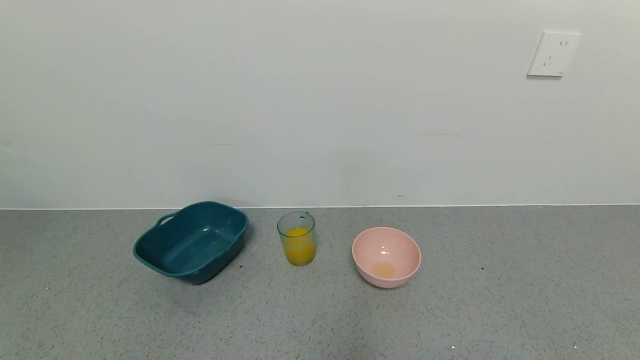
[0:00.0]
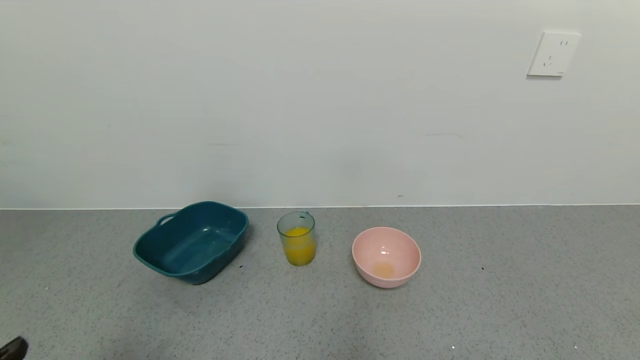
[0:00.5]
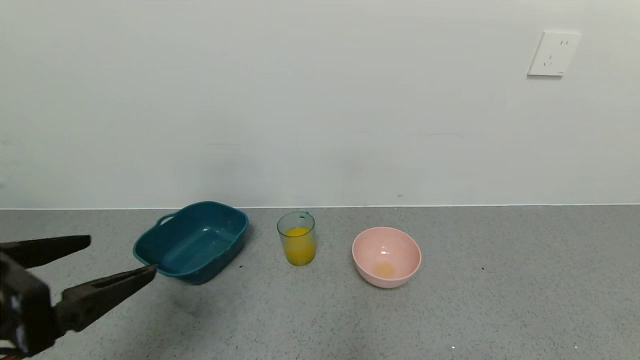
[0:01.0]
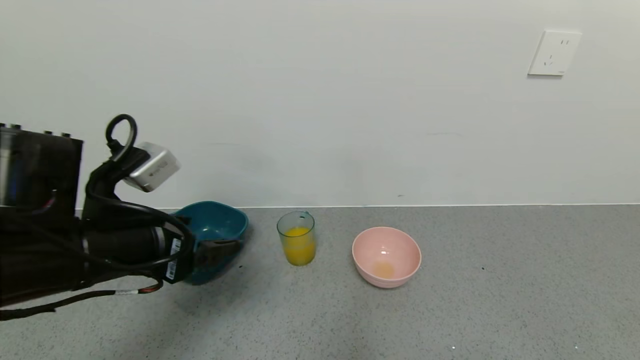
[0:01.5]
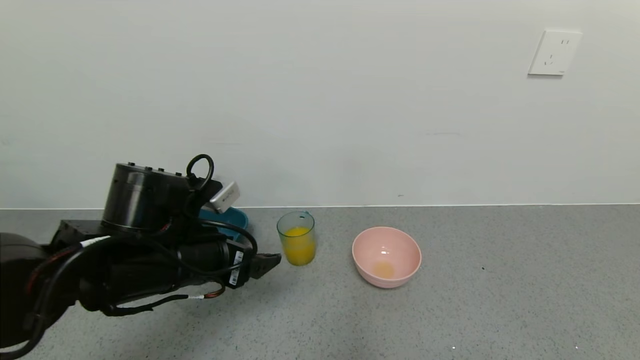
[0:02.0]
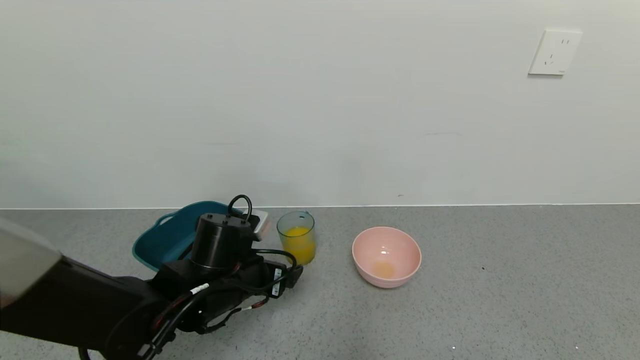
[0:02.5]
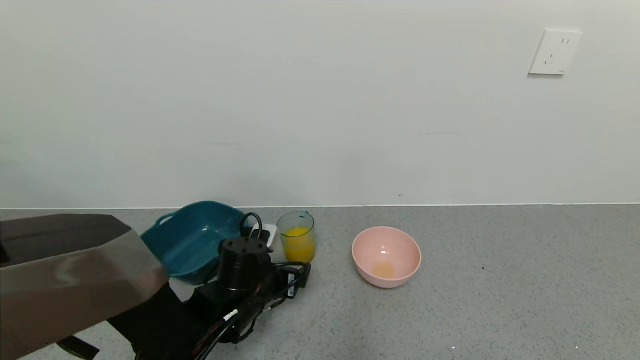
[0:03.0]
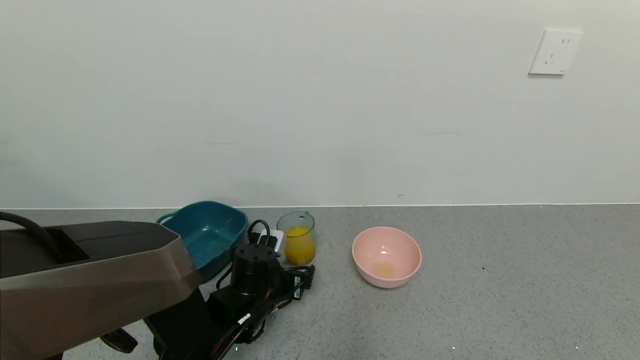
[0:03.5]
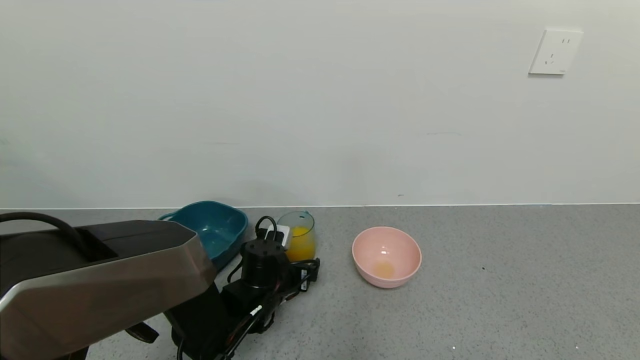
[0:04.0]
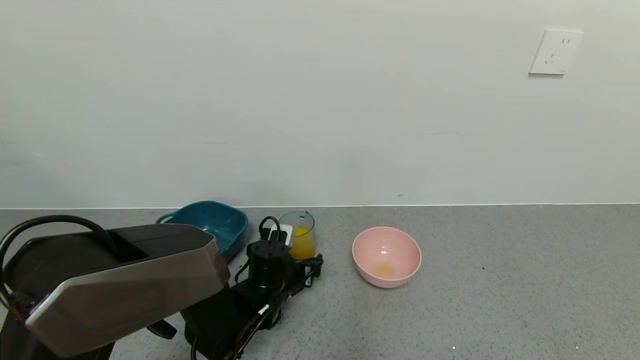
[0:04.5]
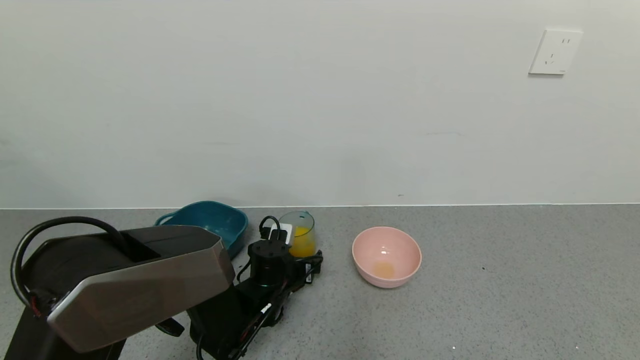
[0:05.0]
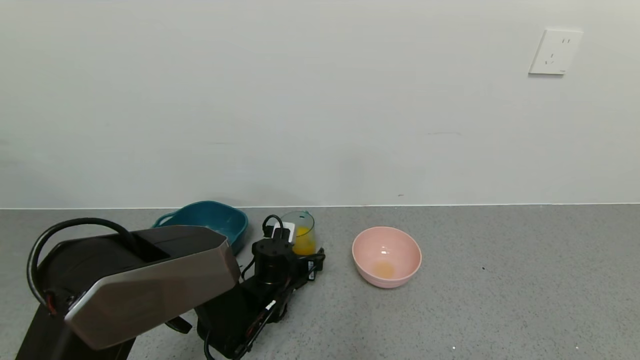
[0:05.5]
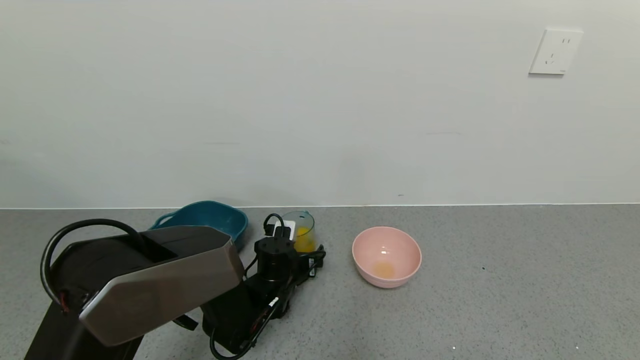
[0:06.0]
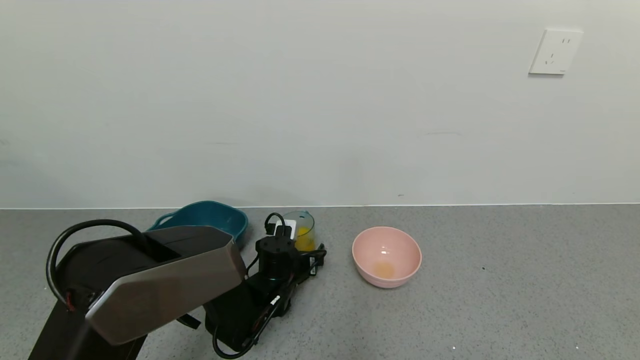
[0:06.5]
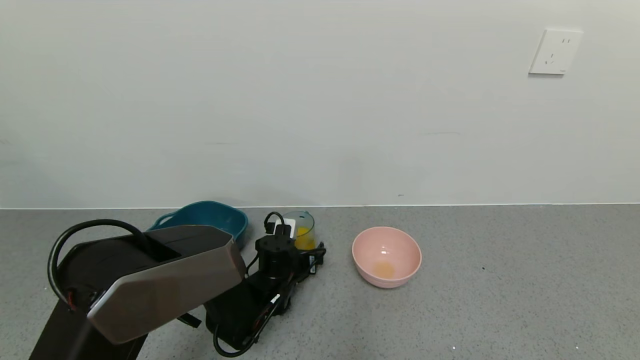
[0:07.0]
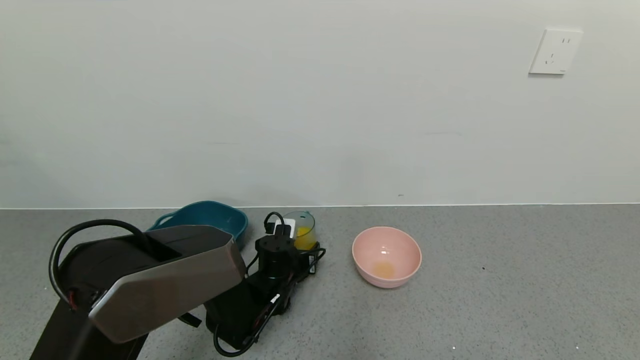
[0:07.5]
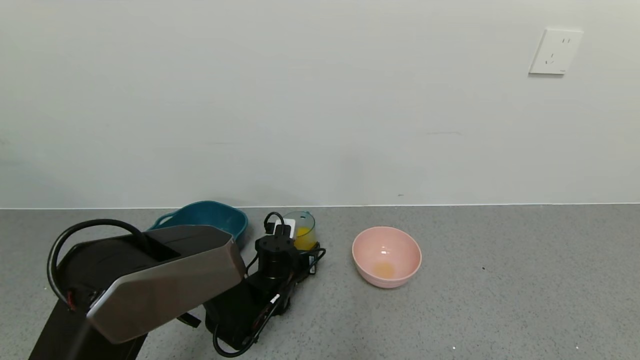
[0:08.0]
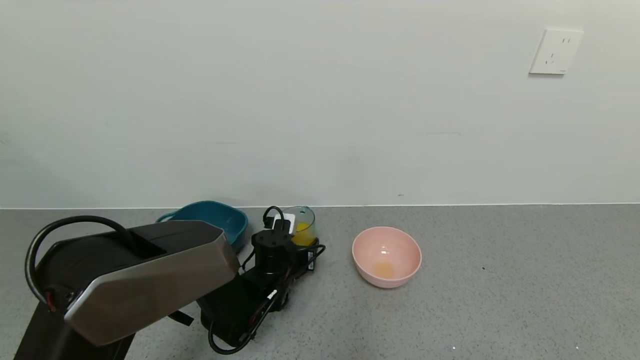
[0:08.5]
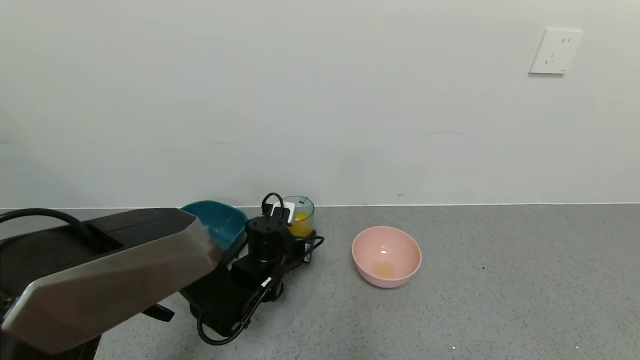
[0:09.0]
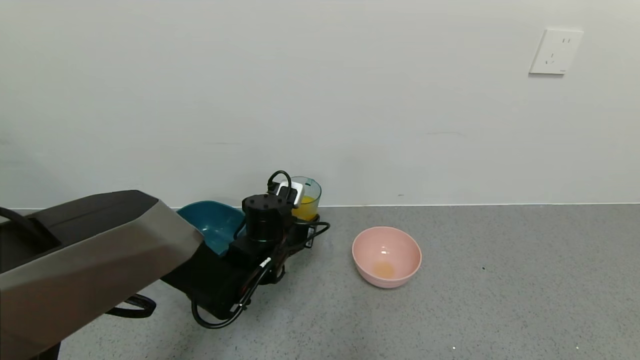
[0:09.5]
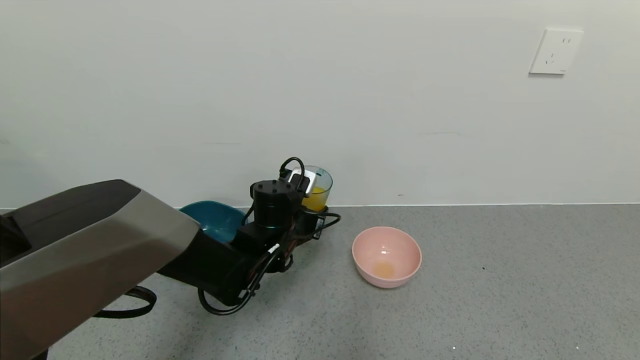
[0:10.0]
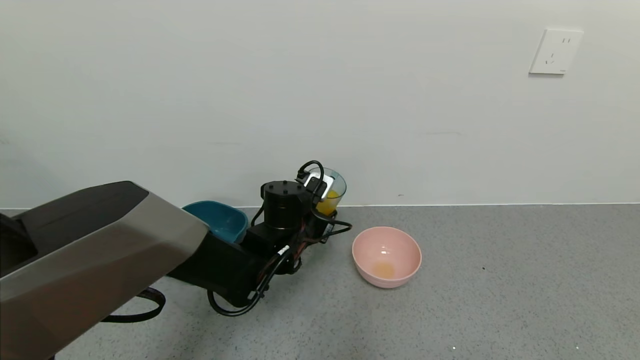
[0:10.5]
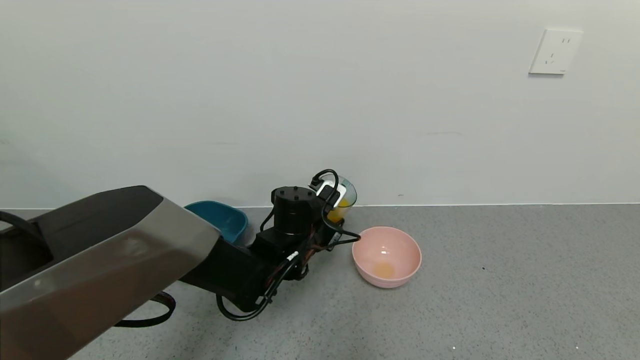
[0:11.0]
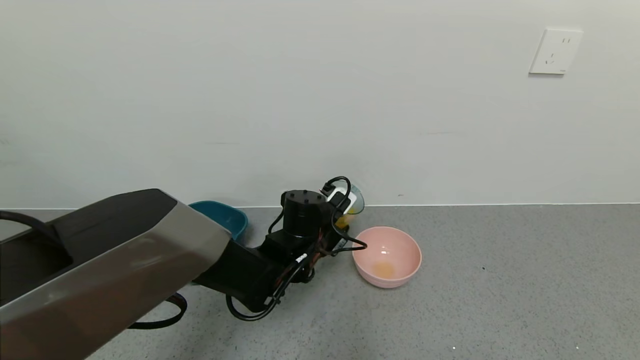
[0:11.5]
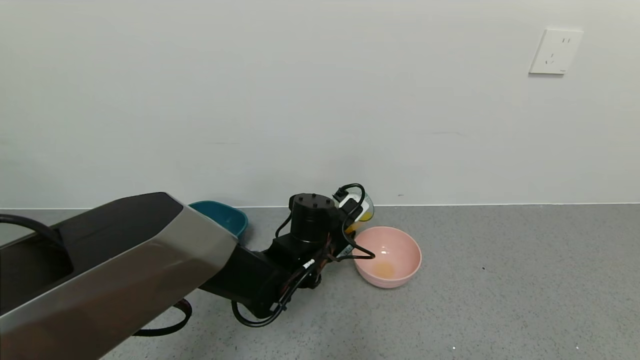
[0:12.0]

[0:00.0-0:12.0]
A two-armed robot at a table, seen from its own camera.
Task of the whole recording: use a gripper to pick up the cup and pour the liquid into a bowl or tray.
Step, 0:00.0 to 0:08.0: Grasp the glass of orange juice with the left gripper.
0:00.0 to 0:02.0: The left gripper travels forward by roughly 30 cm.
0:02.0 to 0:04.0: The left gripper travels downward, forward and to the right by about 20 cm.
0:04.0 to 0:06.0: The grippers move only a little.
0:06.0 to 0:08.0: The left gripper closes.
0:08.0 to 0:10.0: The left gripper travels upward by approximately 10 cm.
0:10.0 to 0:12.0: The left gripper shifts roughly 5 cm to the right.

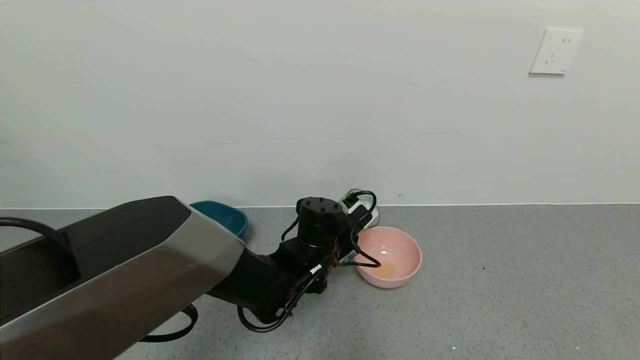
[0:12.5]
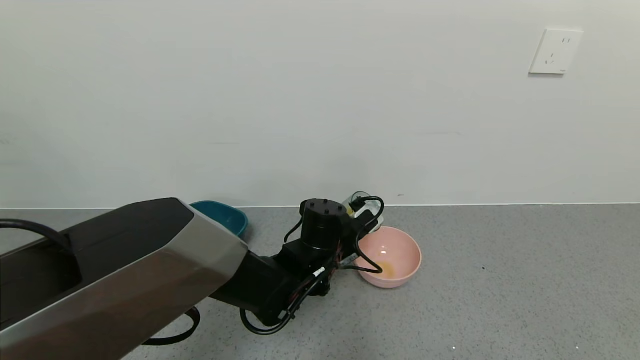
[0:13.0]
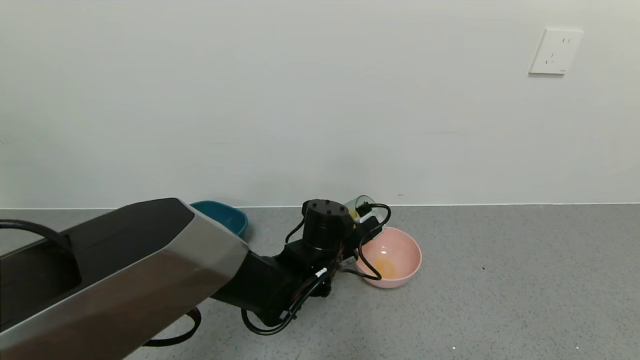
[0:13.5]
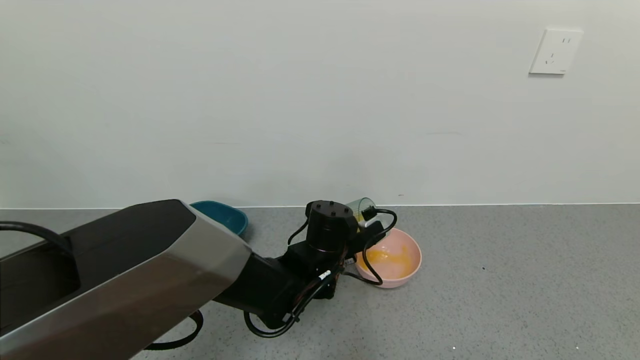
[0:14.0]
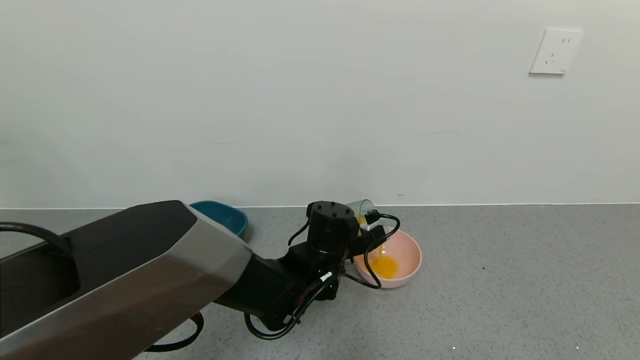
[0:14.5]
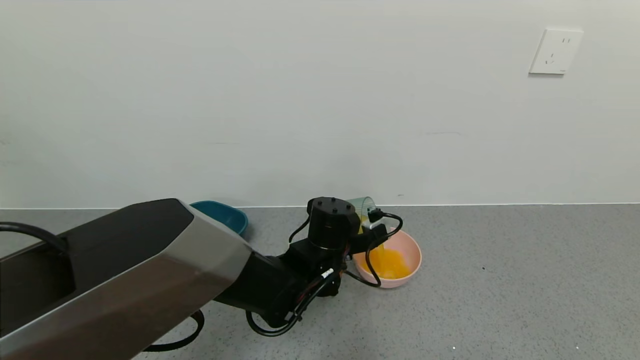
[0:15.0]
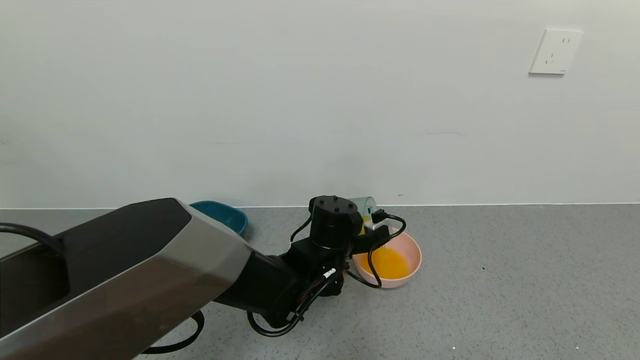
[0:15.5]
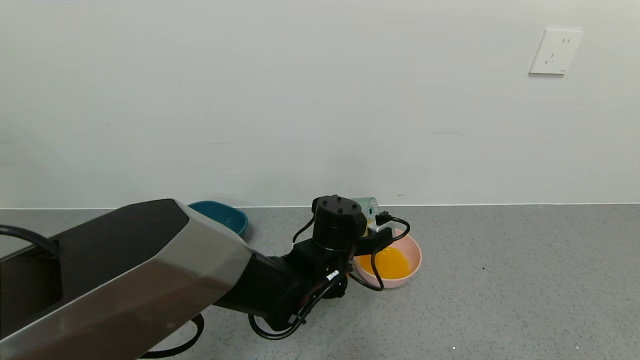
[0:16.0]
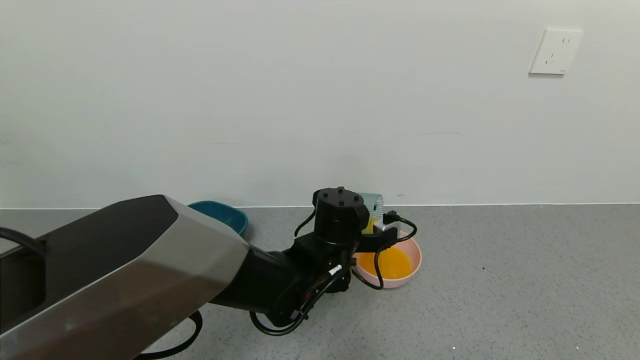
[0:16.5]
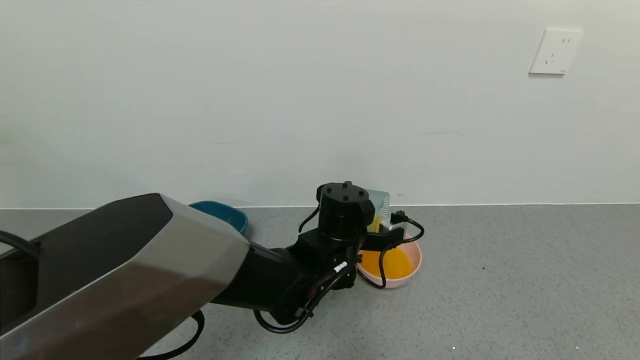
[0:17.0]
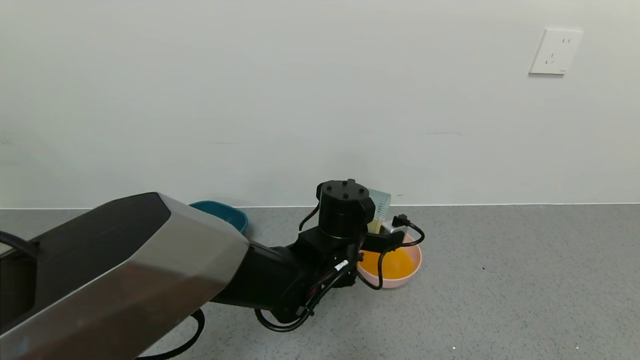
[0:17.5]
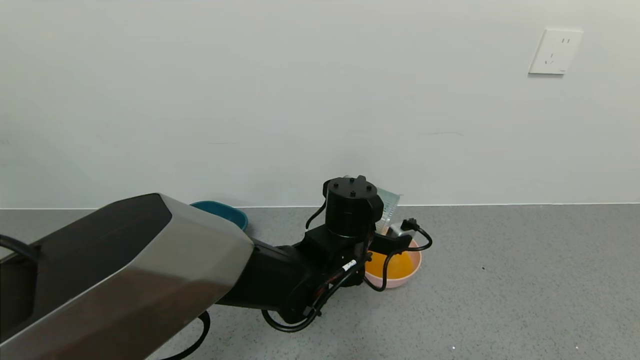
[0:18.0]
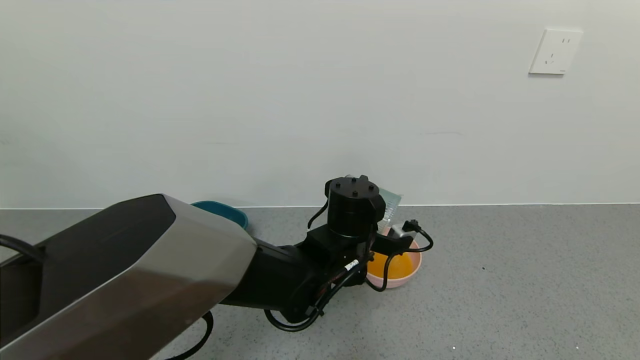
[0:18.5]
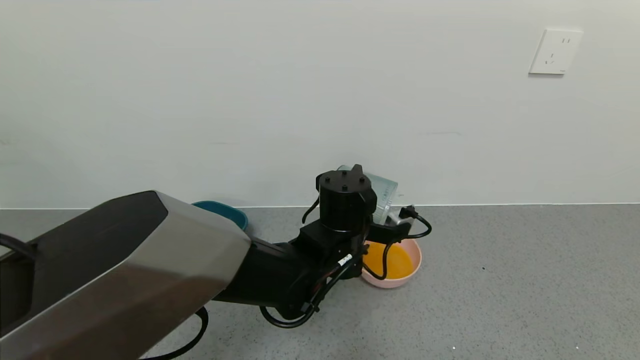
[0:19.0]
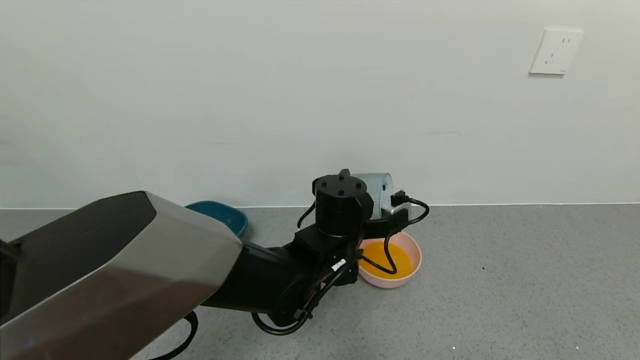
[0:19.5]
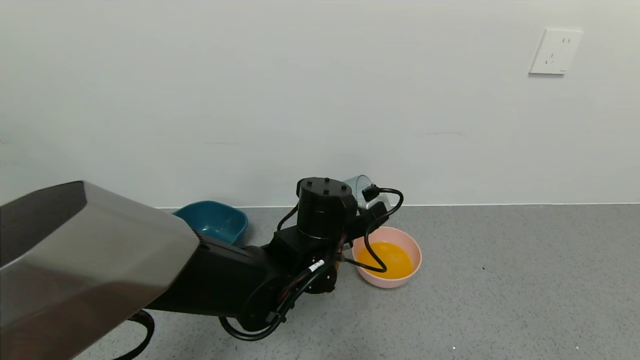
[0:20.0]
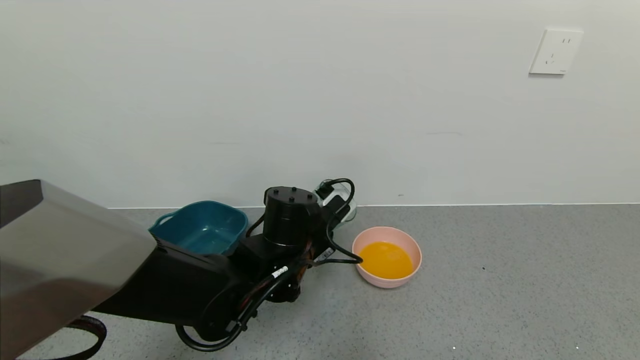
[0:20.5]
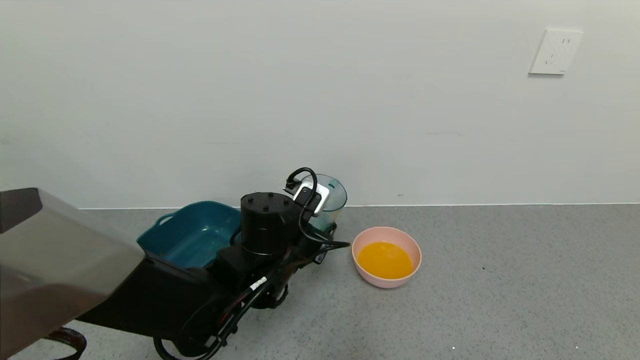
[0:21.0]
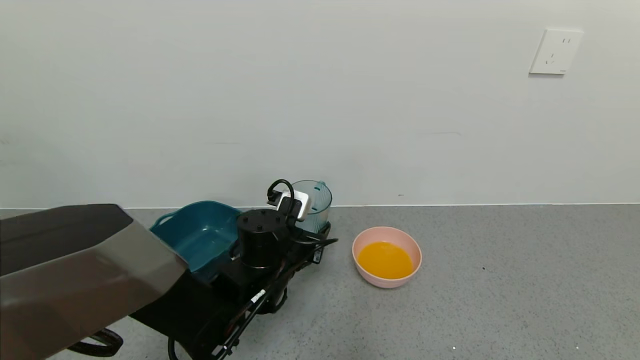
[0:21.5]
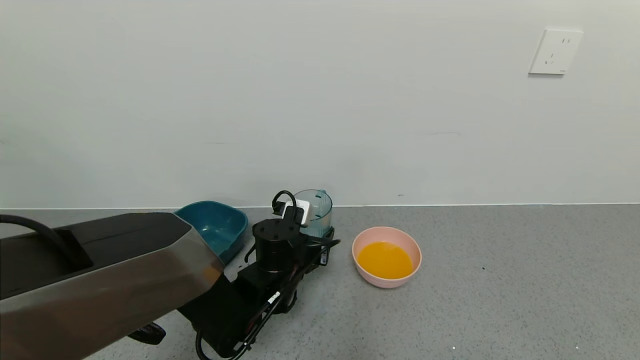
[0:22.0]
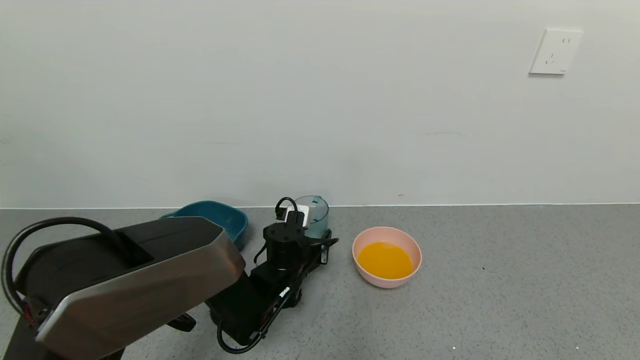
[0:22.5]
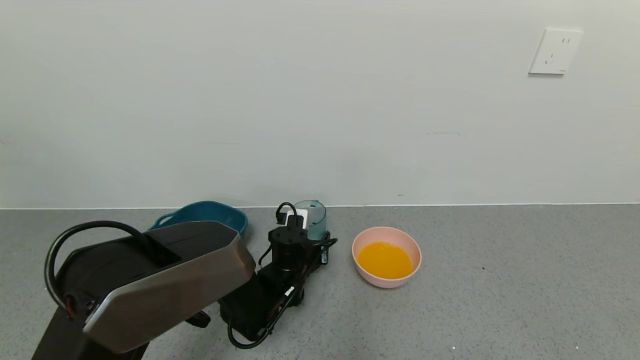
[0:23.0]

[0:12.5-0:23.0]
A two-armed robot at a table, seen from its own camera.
Task of the whole recording: use a gripper to pick up the cup and pour the liquid into a bowl or tray.
Step, 0:12.5 to 0:18.0: Pour the orange juice into the pink bowl with the left gripper.
0:14.5 to 0:16.5: The grippers stay close to where they were, moving slightly.
0:16.5 to 0:19.0: The grippers move only a little.
0:19.0 to 0:21.0: The left gripper goes some 10 cm to the left.
0:21.0 to 0:23.0: The left gripper shifts some 15 cm downward and forward.
